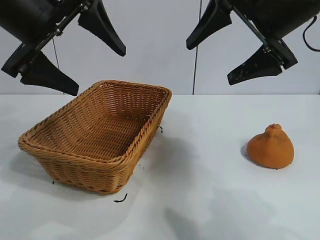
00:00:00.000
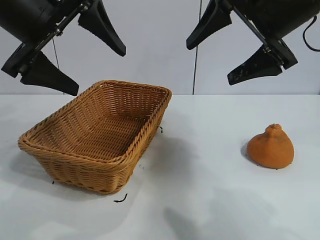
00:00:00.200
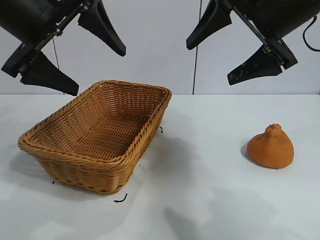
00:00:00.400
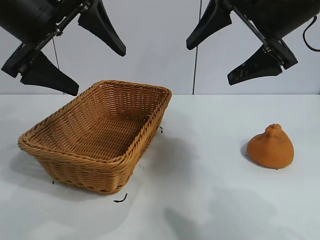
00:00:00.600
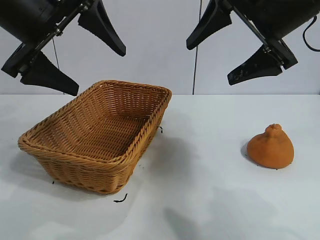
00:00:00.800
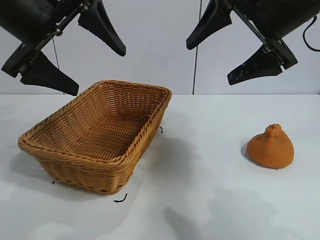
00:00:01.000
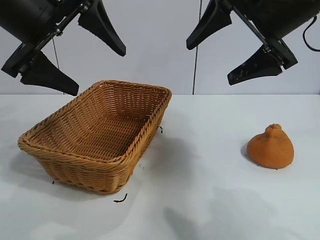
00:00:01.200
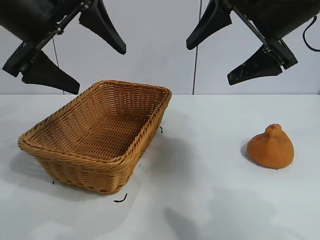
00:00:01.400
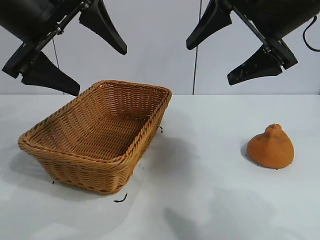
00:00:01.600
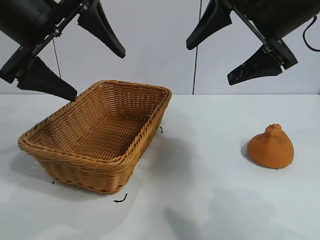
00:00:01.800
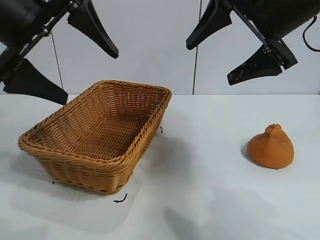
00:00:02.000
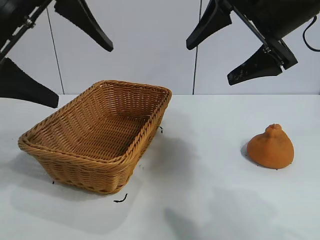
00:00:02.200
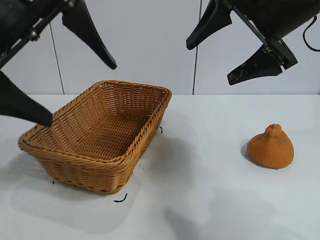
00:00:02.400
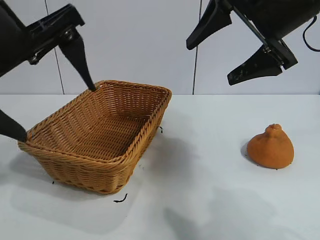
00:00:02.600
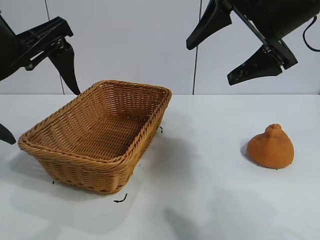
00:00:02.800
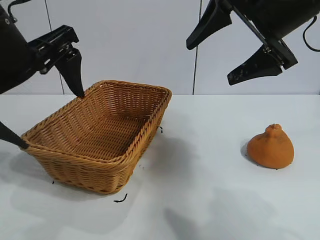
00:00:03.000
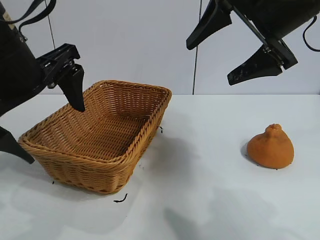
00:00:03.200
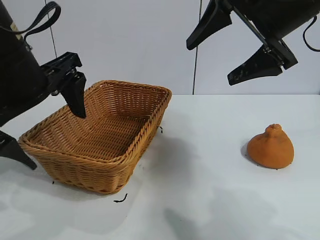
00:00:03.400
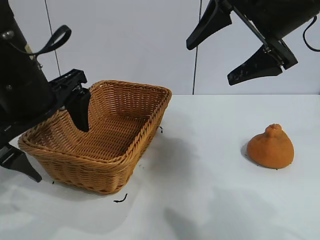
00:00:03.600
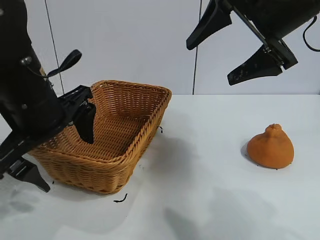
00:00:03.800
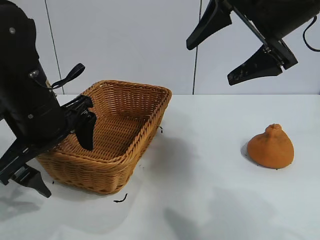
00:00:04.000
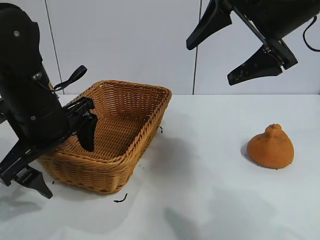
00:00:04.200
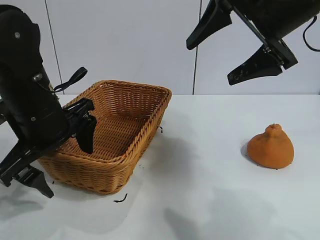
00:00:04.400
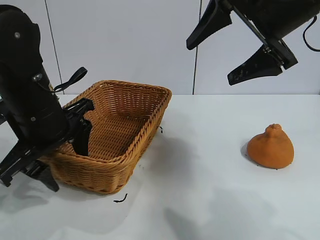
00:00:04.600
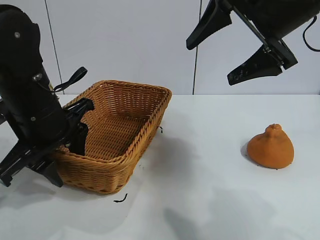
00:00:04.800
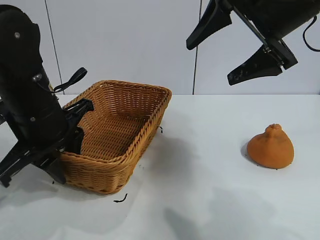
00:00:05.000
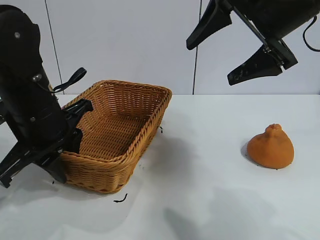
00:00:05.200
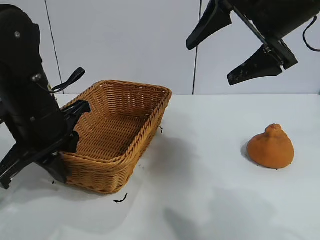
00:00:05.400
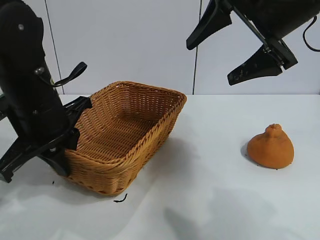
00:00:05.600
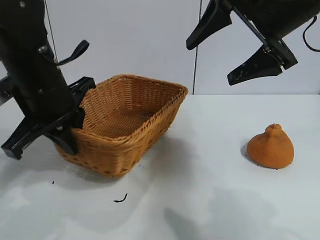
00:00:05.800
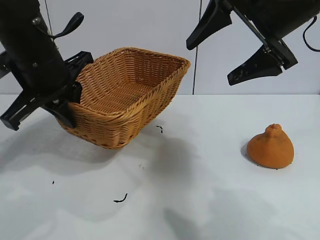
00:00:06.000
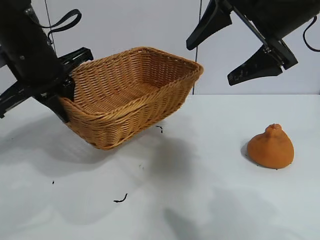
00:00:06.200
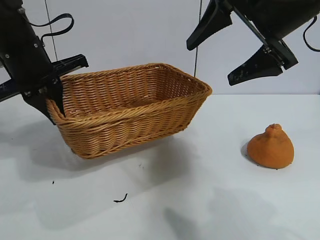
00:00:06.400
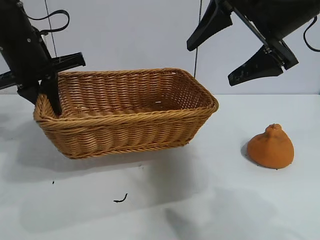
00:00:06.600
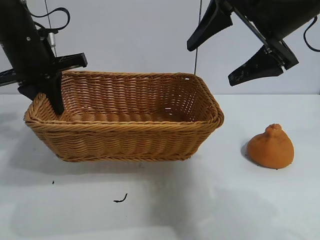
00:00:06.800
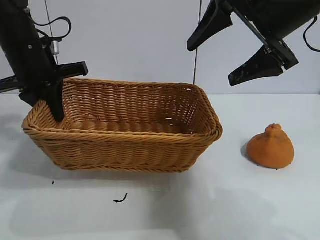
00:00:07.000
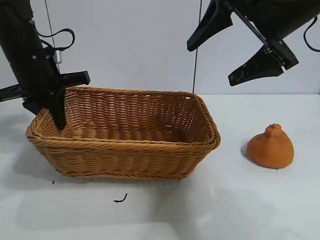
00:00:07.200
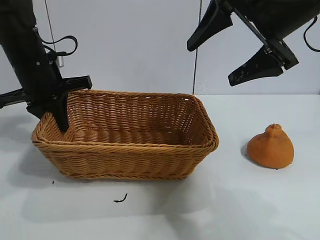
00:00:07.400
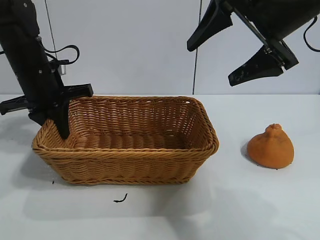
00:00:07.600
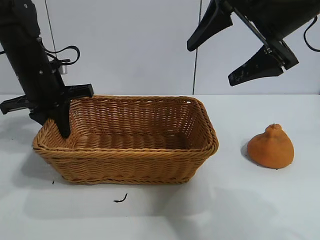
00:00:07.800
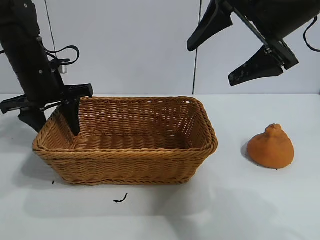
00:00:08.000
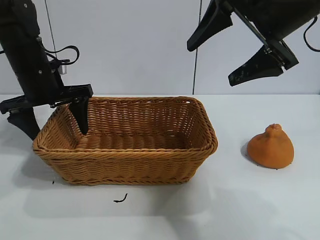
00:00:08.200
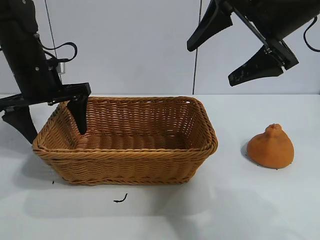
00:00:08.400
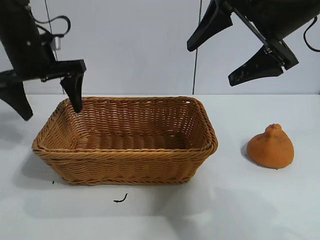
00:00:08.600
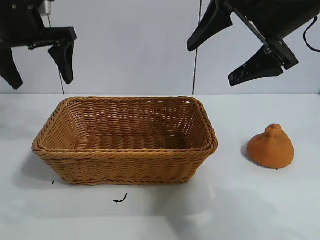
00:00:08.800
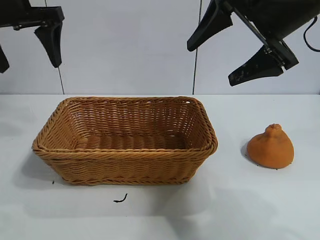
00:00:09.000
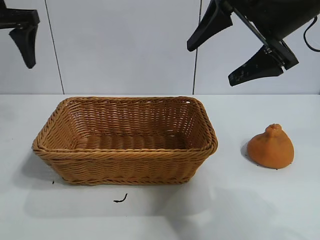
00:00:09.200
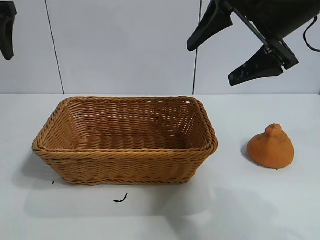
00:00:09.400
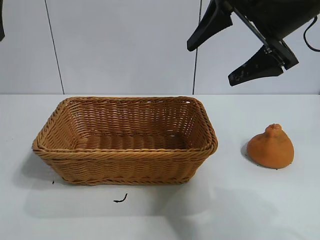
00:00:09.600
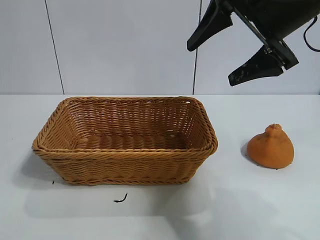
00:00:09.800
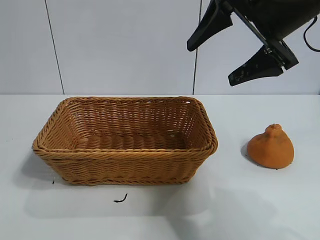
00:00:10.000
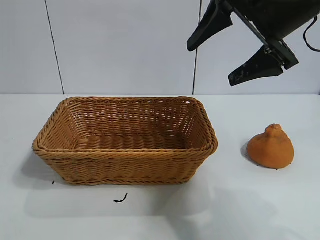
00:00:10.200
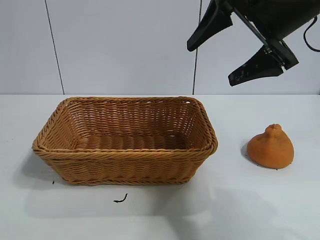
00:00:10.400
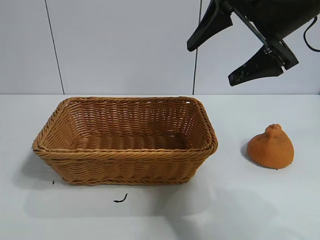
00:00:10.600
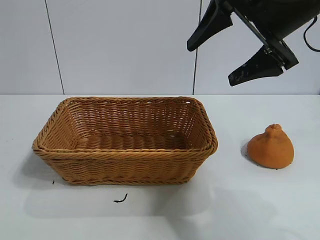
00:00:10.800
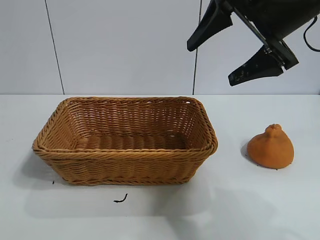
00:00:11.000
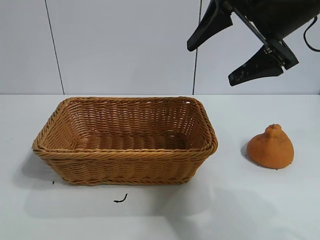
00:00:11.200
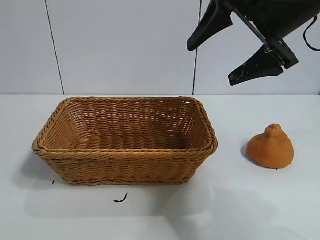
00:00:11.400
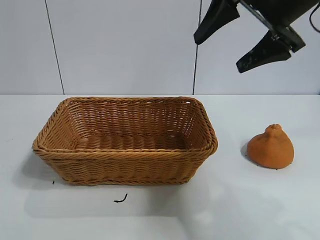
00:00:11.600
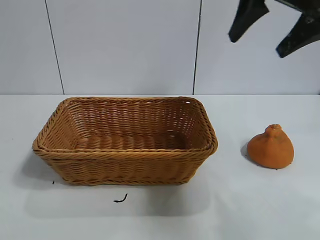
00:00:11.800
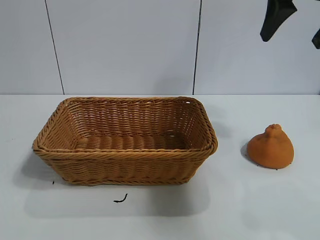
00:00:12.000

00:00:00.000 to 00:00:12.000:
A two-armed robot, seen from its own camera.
Task of the whole recording: pick up the orange and put it into the basket.
Step, 00:00:01.400 to 00:00:05.400: Grasp the basket with left gripper.
Step, 00:00:05.600 to 00:00:08.200: Place the basket in the center of view with left gripper.

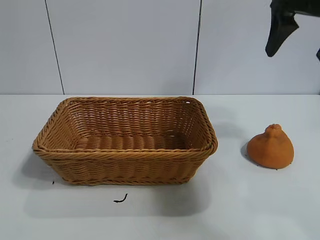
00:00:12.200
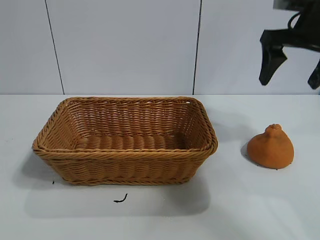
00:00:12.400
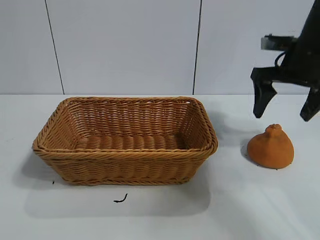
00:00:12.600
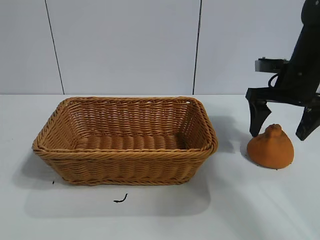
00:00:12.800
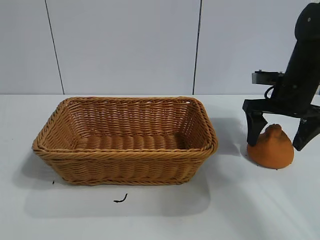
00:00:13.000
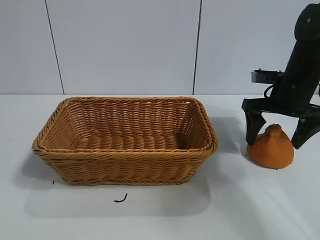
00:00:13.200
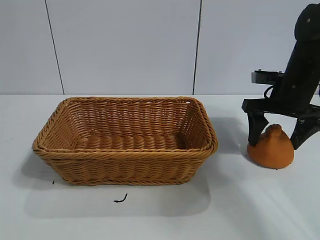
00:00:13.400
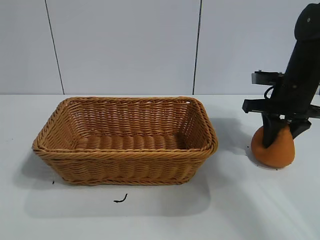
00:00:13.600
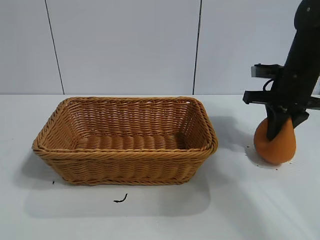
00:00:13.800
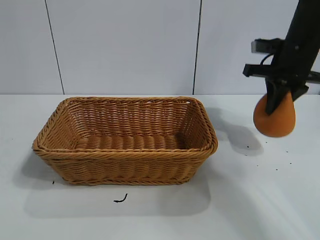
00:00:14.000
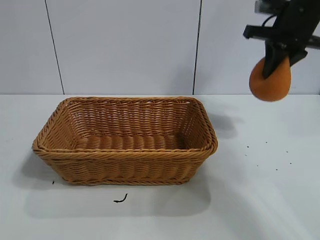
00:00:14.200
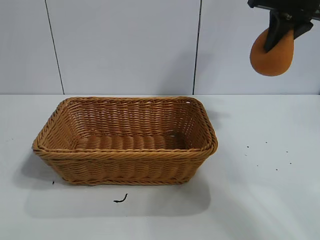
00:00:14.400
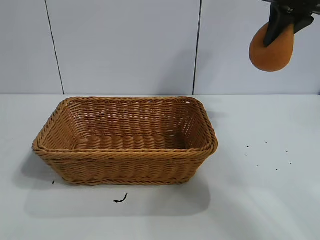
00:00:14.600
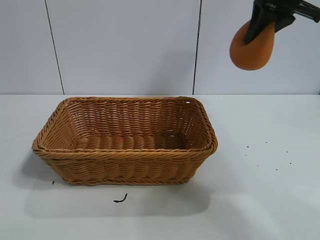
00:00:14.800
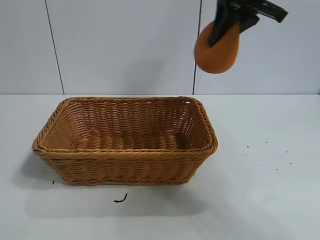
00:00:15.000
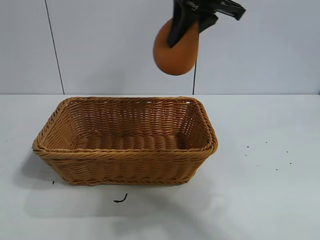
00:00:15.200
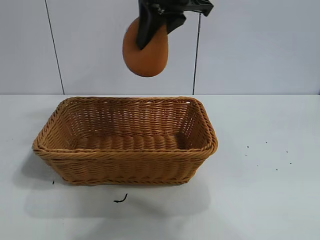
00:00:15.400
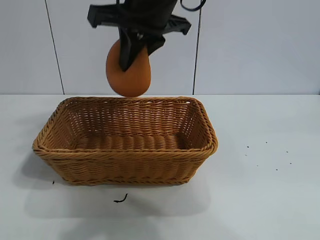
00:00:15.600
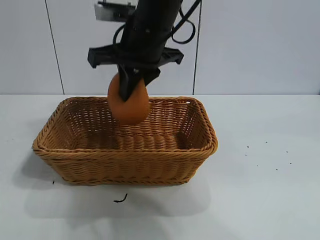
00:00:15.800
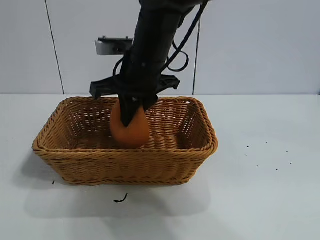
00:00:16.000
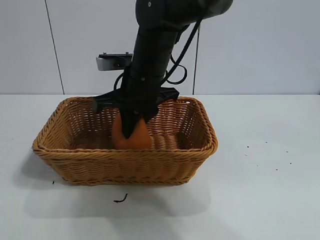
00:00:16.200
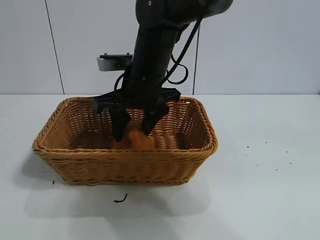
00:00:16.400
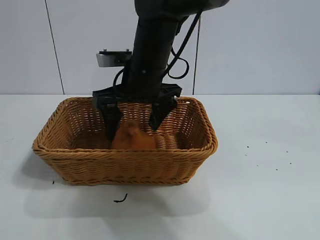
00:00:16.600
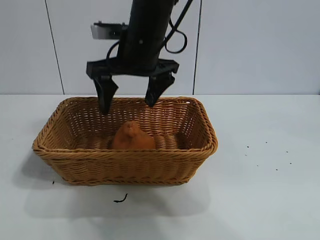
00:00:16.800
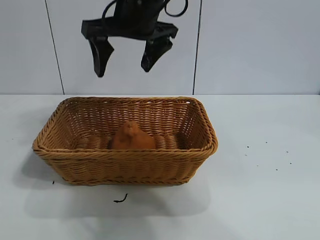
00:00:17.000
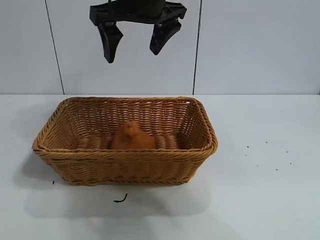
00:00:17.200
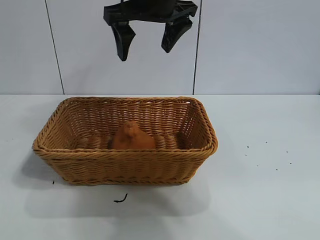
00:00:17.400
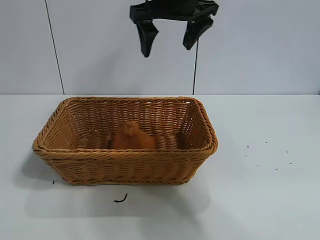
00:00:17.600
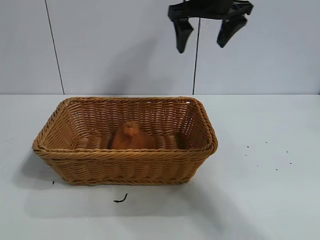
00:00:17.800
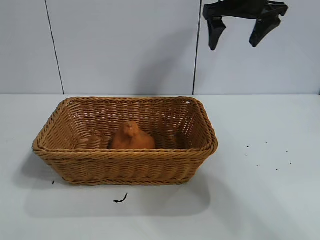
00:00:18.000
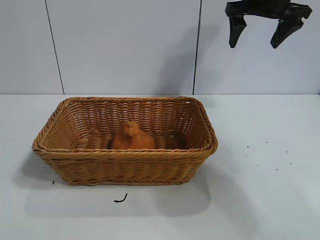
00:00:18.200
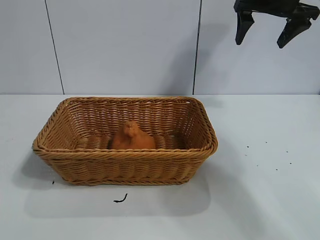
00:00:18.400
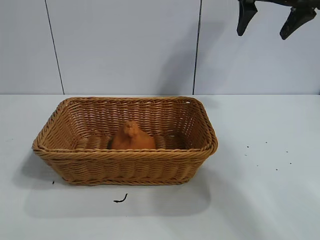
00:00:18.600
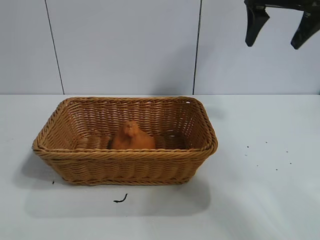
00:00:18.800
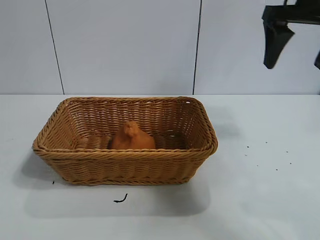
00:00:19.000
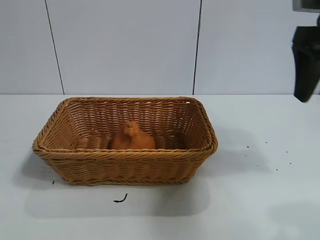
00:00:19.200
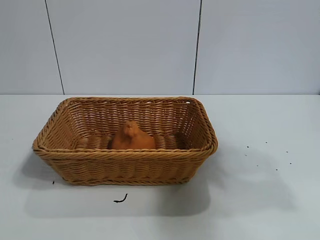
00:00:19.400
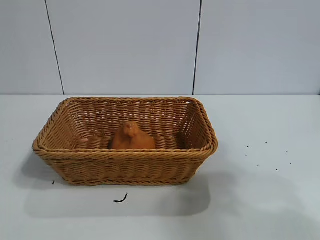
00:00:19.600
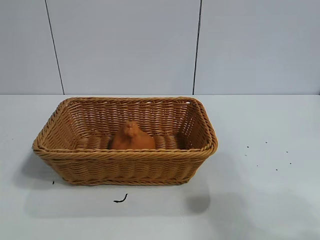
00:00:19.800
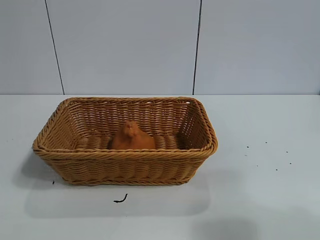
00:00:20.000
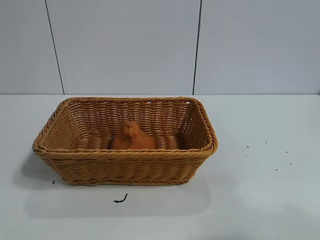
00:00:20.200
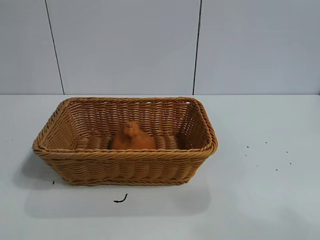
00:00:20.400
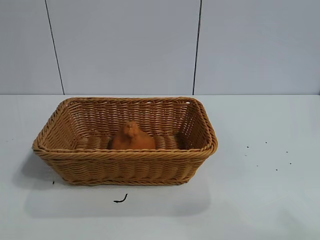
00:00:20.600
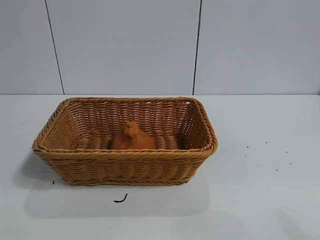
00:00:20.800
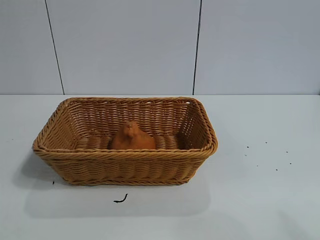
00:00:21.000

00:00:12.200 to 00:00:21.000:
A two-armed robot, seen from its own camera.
Task of the whole recording: pick up the orange and put it into the basket.
Step, 00:00:14.000 to 00:00:16.400: Place the orange in the basket with right gripper.
